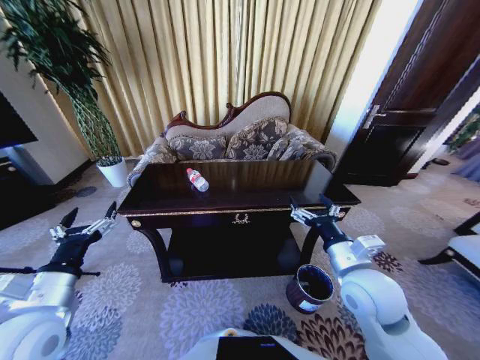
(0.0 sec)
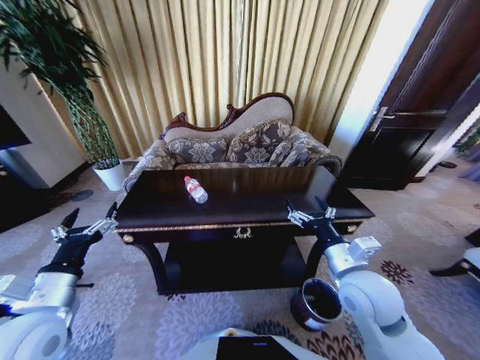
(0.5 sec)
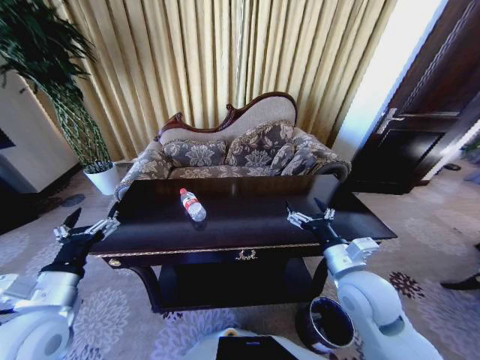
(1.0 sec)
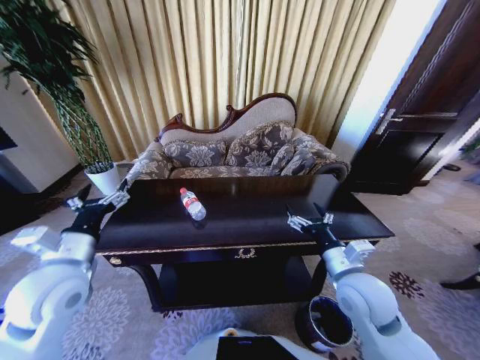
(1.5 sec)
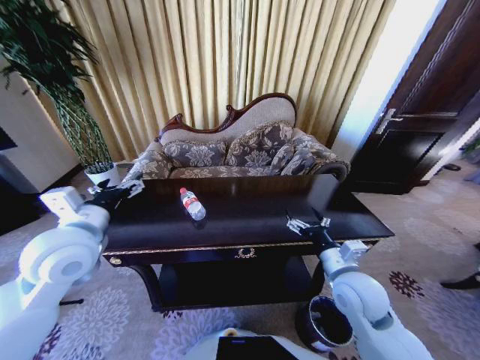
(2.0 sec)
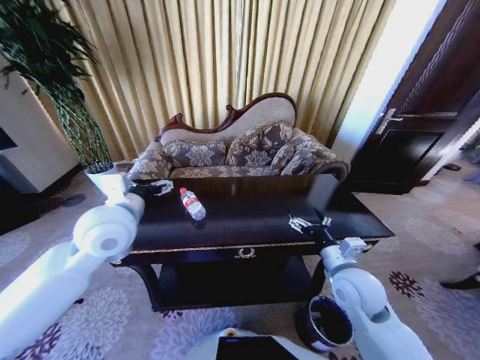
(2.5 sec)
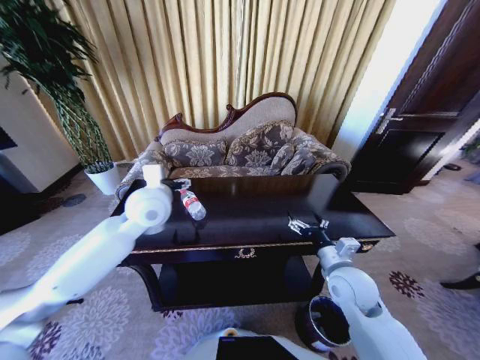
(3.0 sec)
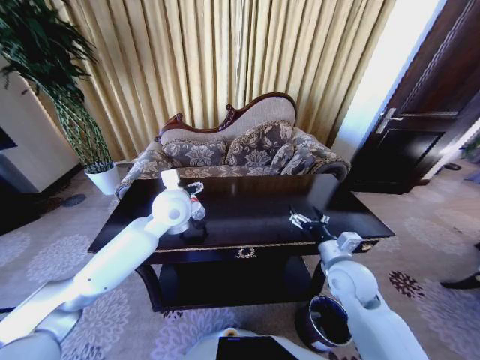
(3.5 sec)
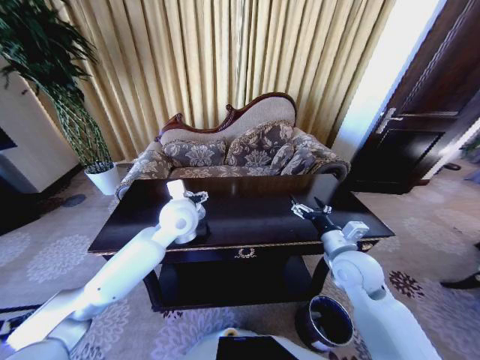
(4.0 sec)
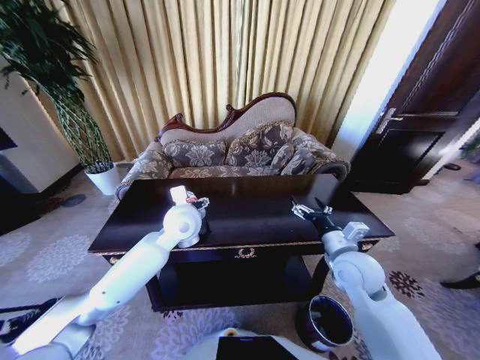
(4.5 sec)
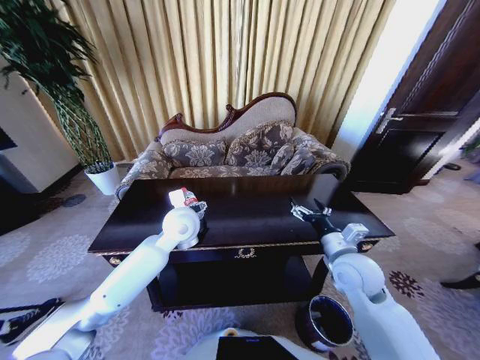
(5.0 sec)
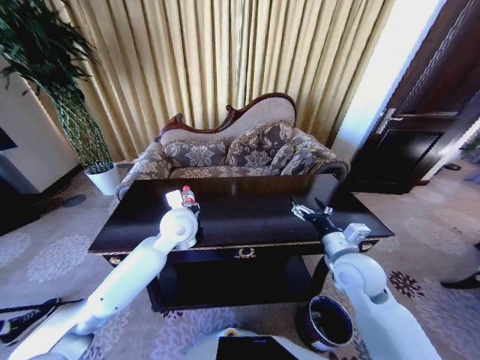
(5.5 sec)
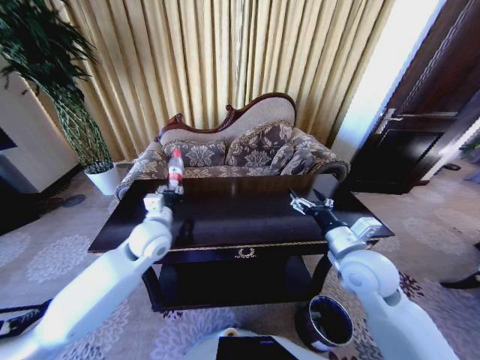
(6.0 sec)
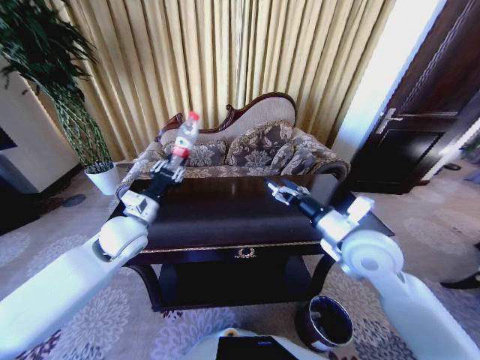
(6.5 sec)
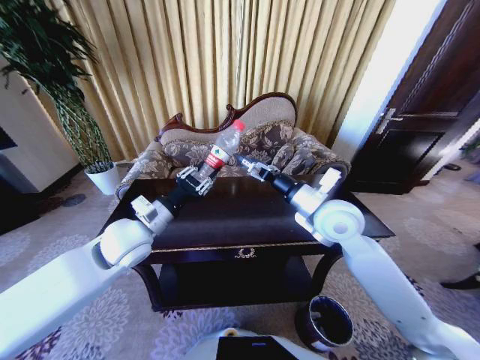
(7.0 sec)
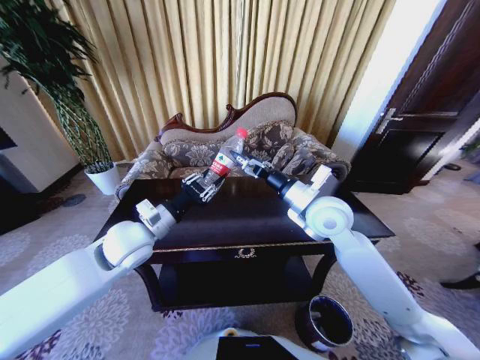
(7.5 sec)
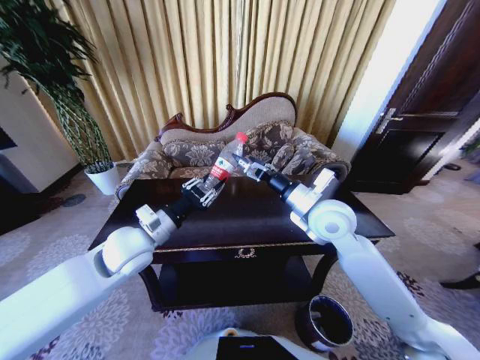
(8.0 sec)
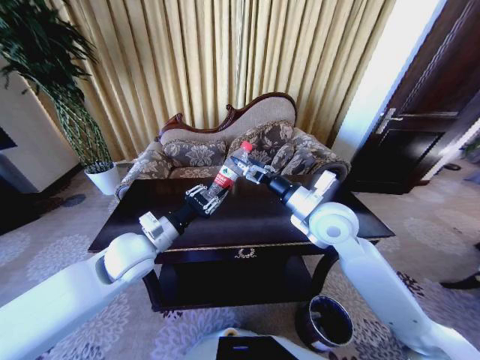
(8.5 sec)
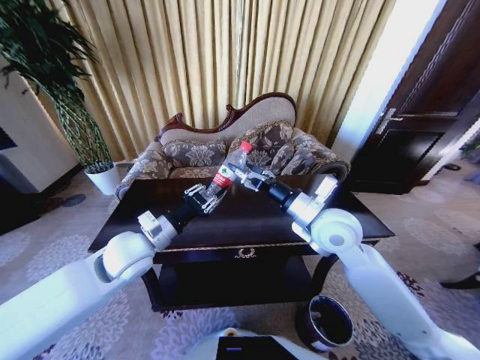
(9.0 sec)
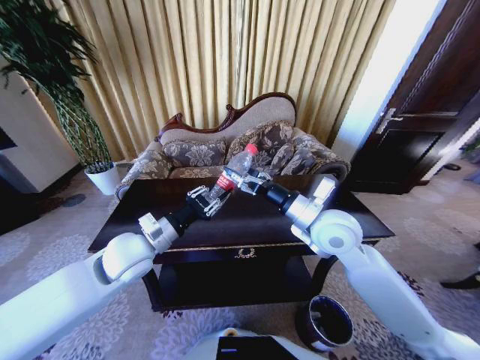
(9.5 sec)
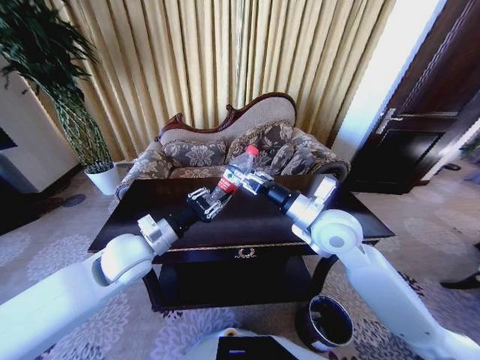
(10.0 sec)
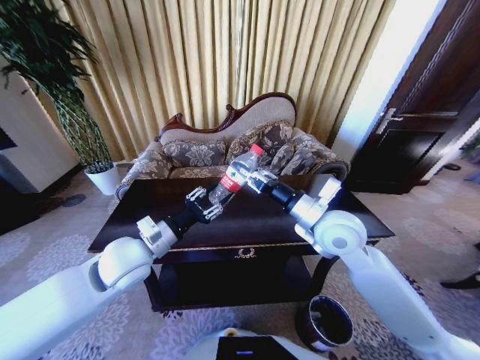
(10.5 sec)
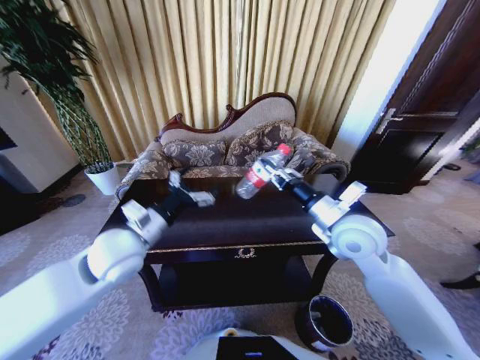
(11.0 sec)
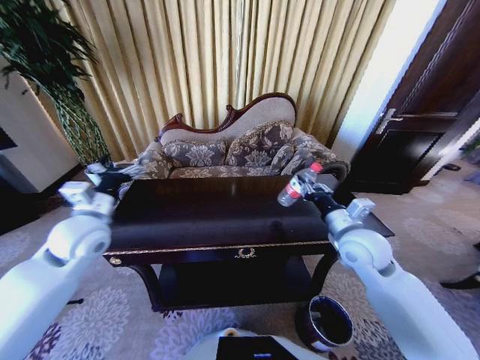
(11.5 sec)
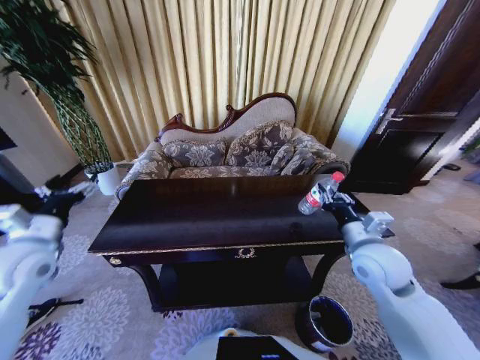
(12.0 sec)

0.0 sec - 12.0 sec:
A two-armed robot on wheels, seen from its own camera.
Task of the whole recording: Move to the front of the table and place the trash on the table into the trash bin.
0.0 sec - 2.0 sec: The left gripper heads forward and upward, covering some 15 cm.
2.0 sec - 4.0 sec: The left gripper is displaced to the right and forward by about 20 cm. Meanwhile the right gripper changes place by roughly 5 cm.
4.0 sec - 6.0 sec: The left gripper travels to the left by roughly 10 cm, and closes up.
6.0 sec - 8.0 sec: The left gripper ends up roughly 5 cm from where it was. Meanwhile the right gripper goes about 15 cm forward, upward and to the left.
8.0 sec - 10.0 sec: The right gripper closes.
10.0 sec - 12.0 sec: The left gripper heads to the left, covering approximately 20 cm, and opens its fingers. The right gripper goes some 15 cm to the right, downward and backward.

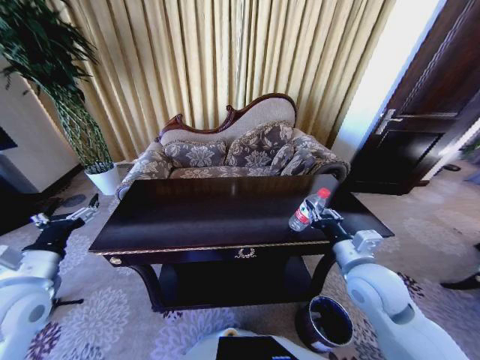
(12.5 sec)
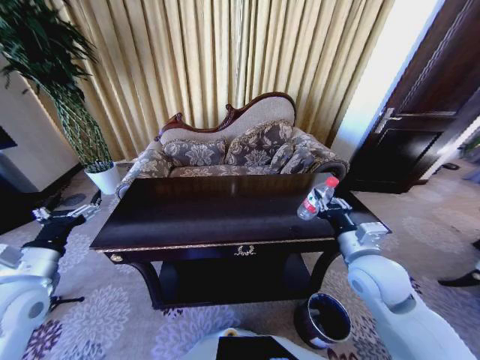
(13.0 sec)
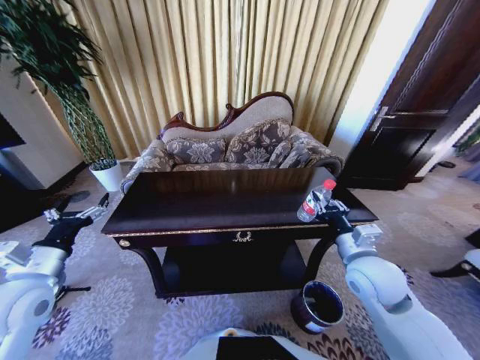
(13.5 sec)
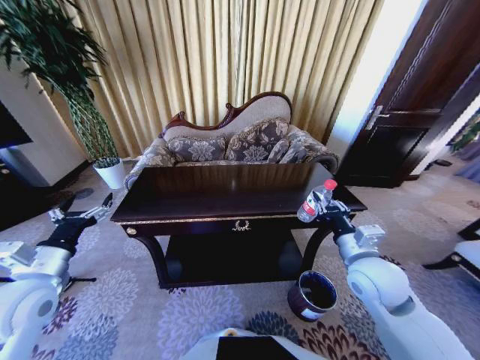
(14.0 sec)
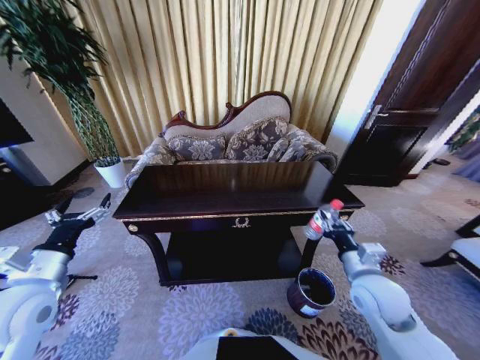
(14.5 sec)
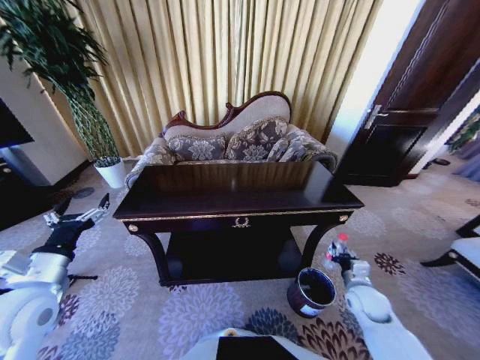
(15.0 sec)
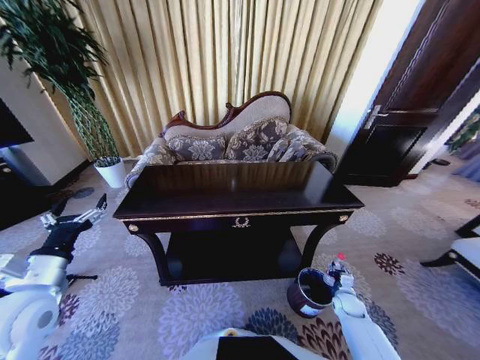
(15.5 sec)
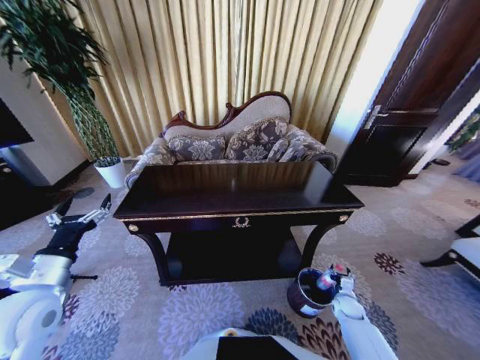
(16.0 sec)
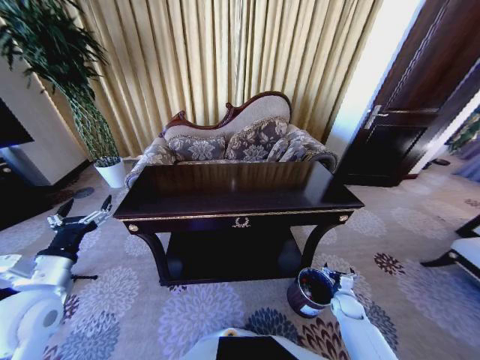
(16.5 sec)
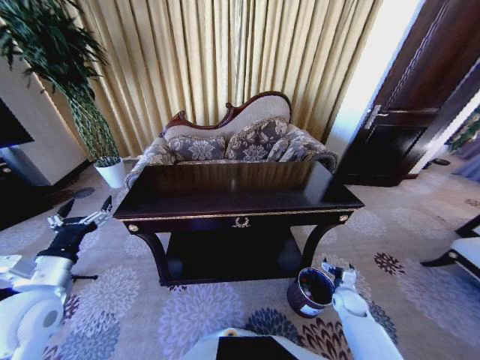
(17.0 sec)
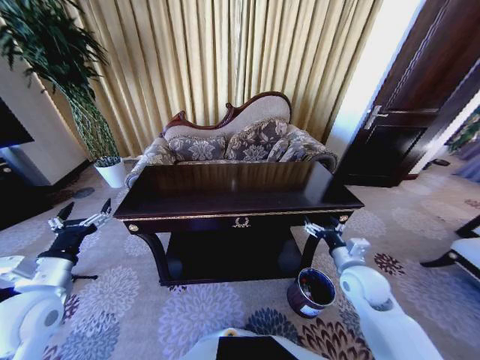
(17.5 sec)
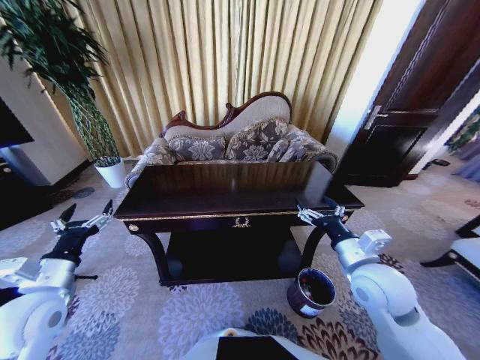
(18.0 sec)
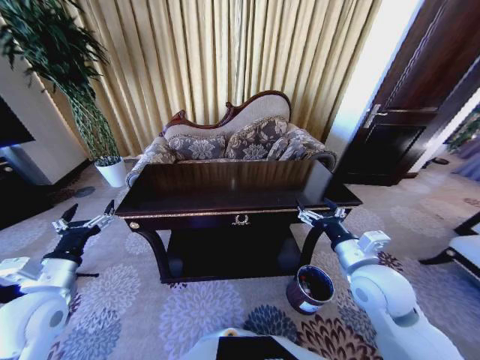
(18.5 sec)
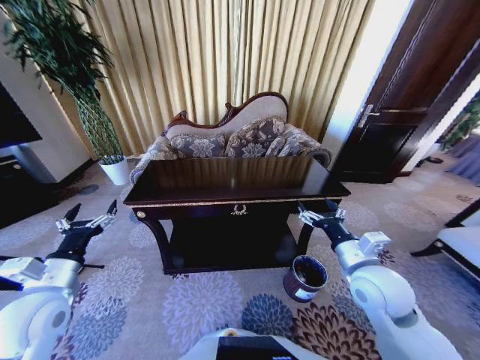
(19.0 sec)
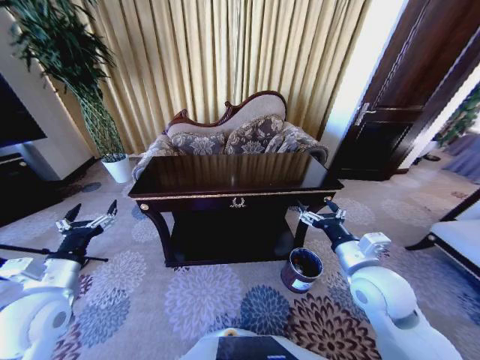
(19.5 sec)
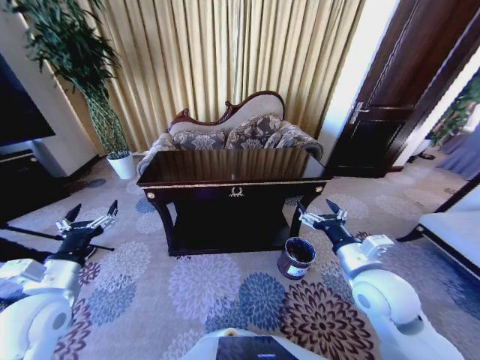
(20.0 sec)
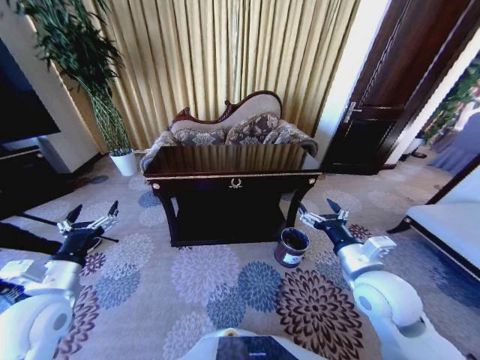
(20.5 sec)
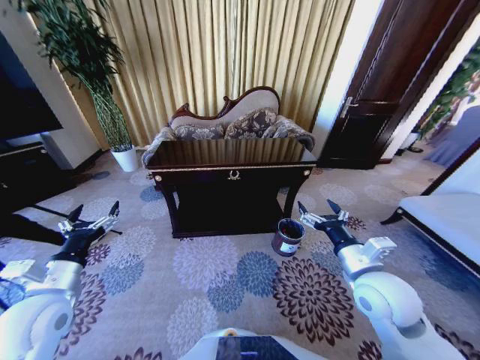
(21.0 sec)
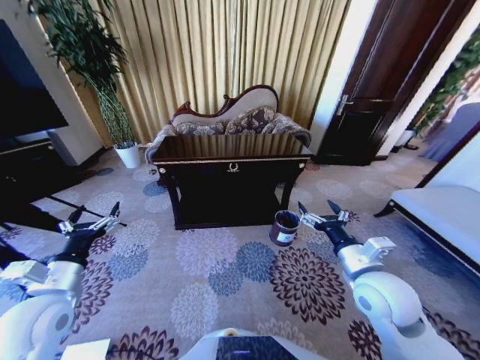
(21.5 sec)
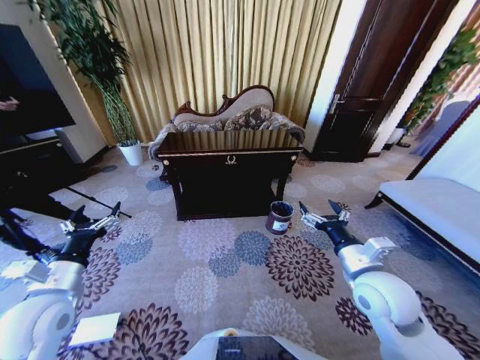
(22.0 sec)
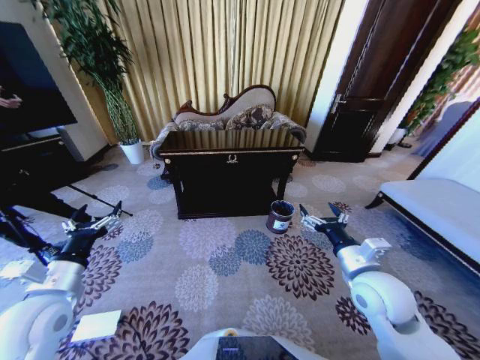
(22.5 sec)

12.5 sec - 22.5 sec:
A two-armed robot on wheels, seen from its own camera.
Task of the whole recording: Move to the front of the table and place the trash on the table into the trash bin.
12.5 sec - 14.5 sec: The right gripper moves some 5 cm.
14.5 sec - 16.5 sec: The right gripper travels downward by about 30 cm, and opens up.
16.5 sec - 18.5 sec: The right gripper shifts approximately 35 cm upward.
